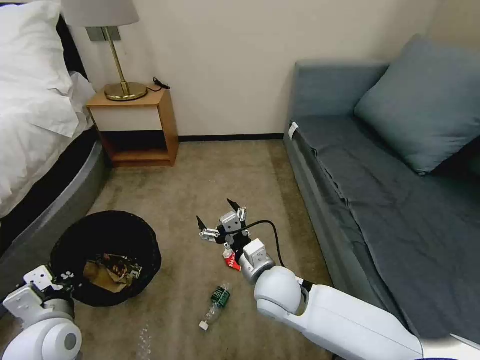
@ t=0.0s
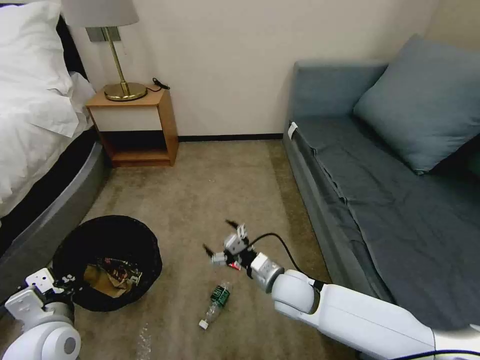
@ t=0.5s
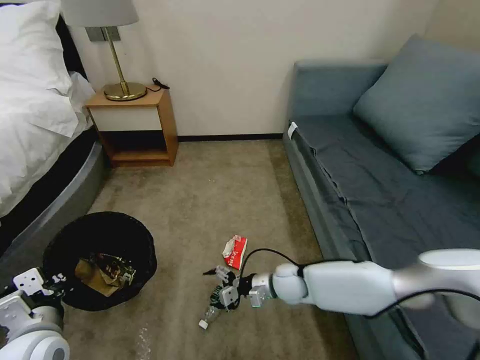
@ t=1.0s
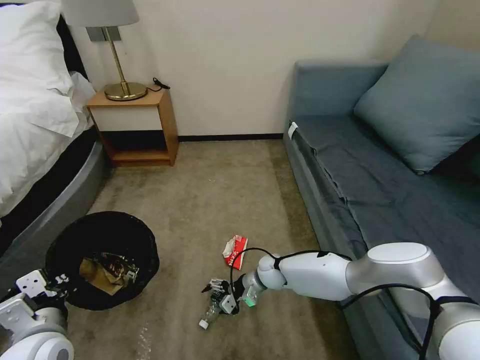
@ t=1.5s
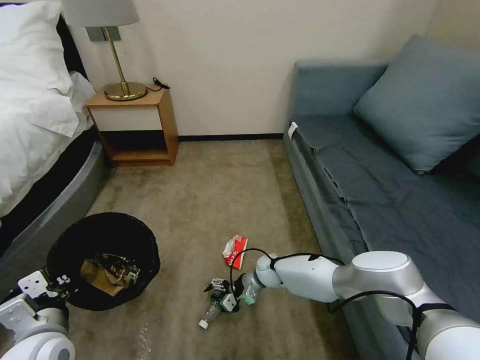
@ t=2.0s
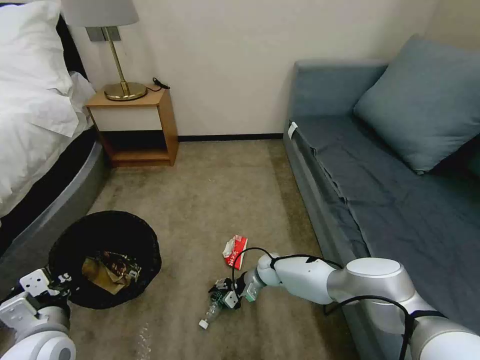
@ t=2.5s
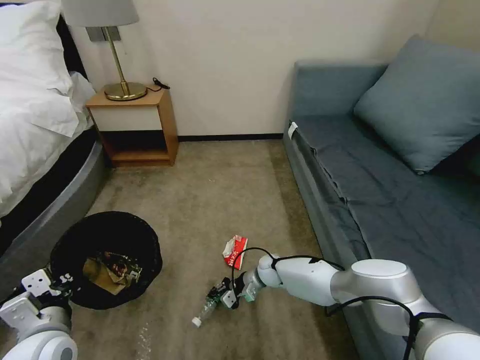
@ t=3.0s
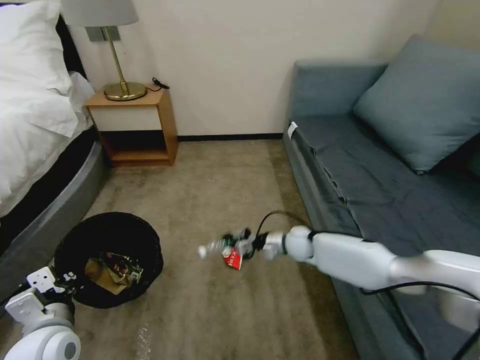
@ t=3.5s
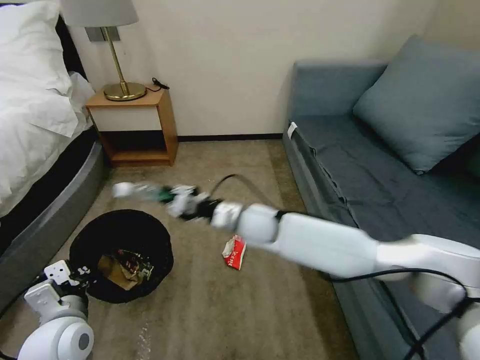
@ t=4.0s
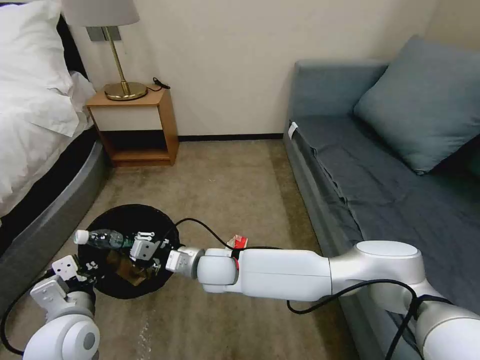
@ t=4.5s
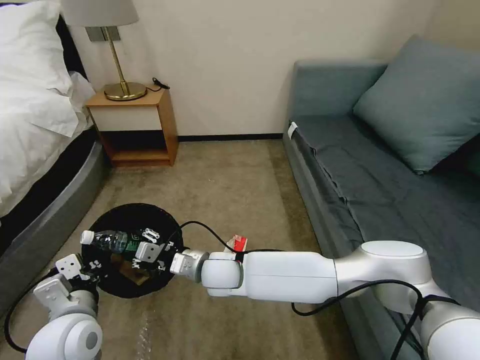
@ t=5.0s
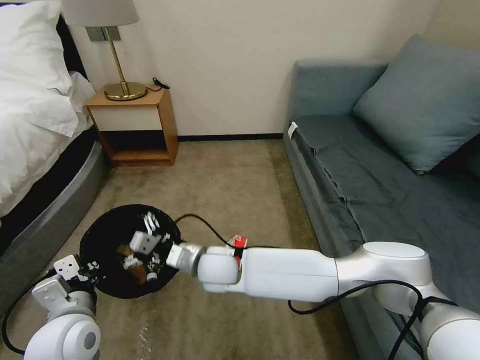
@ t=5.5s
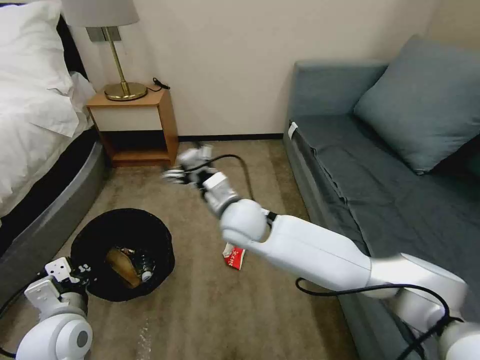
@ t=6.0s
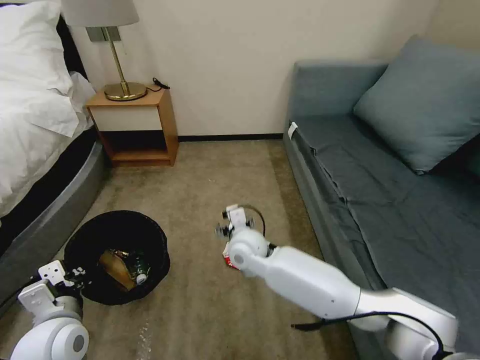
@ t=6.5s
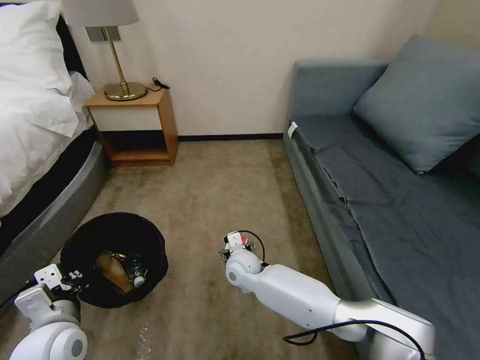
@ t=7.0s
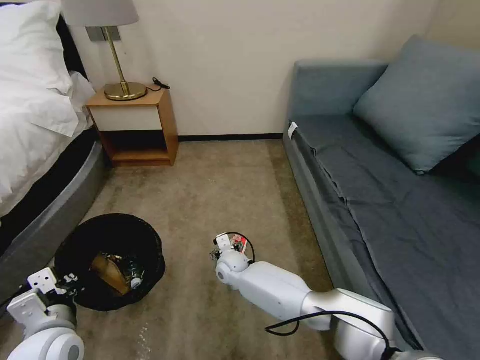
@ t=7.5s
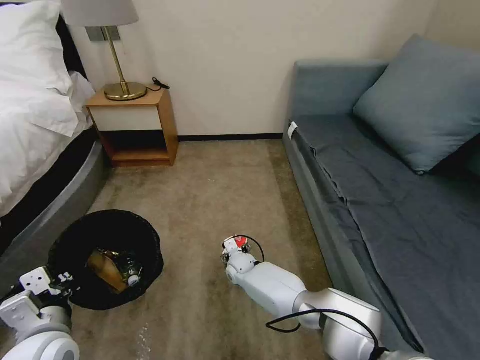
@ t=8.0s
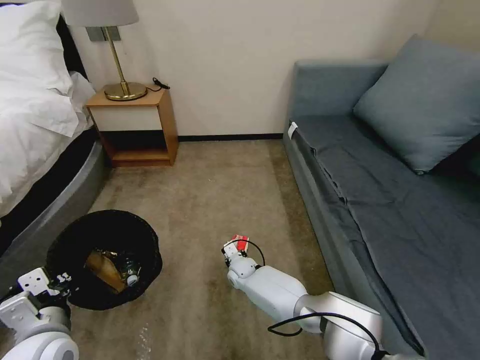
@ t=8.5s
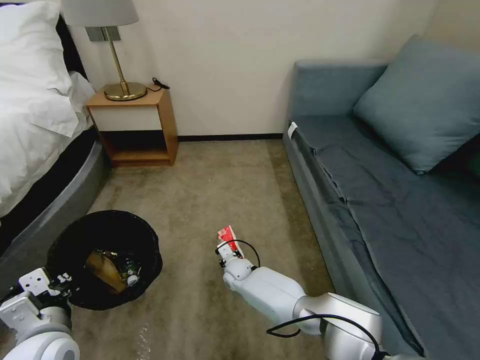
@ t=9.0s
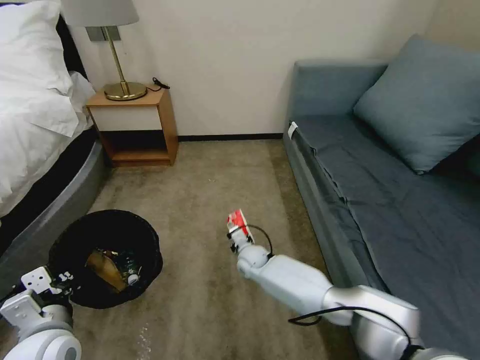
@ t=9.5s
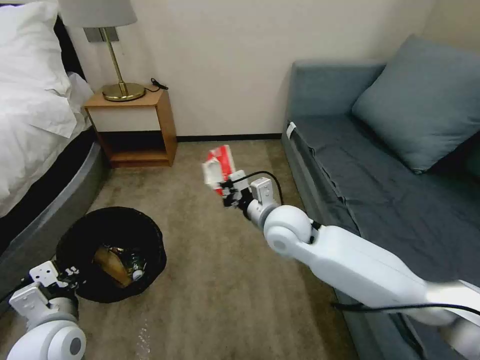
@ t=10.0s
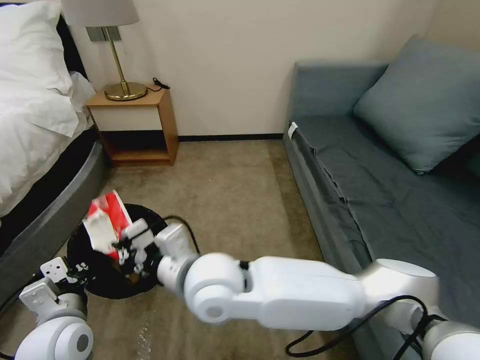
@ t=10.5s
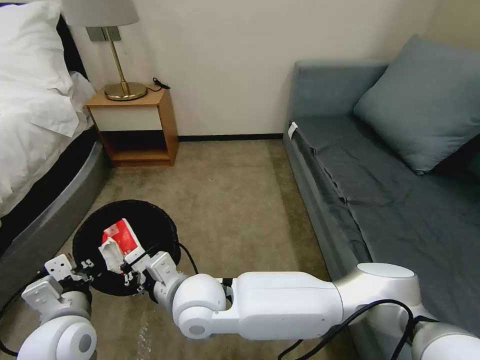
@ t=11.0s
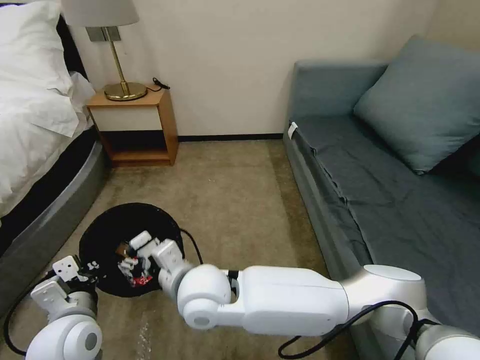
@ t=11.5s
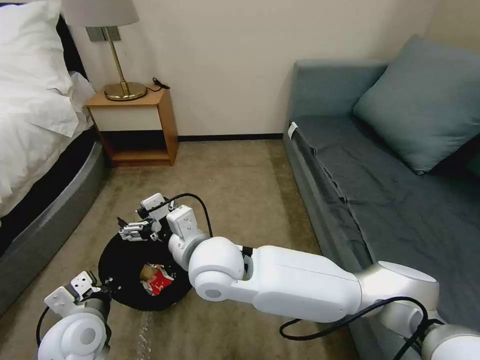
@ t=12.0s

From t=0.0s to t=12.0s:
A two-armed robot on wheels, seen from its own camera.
Task of the whole recording: Pick up the trash bin, then pick up the garbage on the floor and place it into the trash bin.
From t=0.0s to t=2.0s: The right gripper is displaced downward and forward by about 25 cm.
From t=2.0s to t=4.0s: The right gripper travels upward by roughly 25 cm, and closes.
From t=4.0s to t=6.0s: The right gripper goes about 5 cm upward, and opens its fingers.
From t=6.0s to t=8.0s: The right gripper heads downward, covering about 30 cm.
From t=8.0s to t=10.0s: The right gripper heads upward, covering roughly 30 cm, and closes.
From t=10.0s to t=12.0s: The right gripper heads to the left and backward, covering about 15 cm, and opens up.

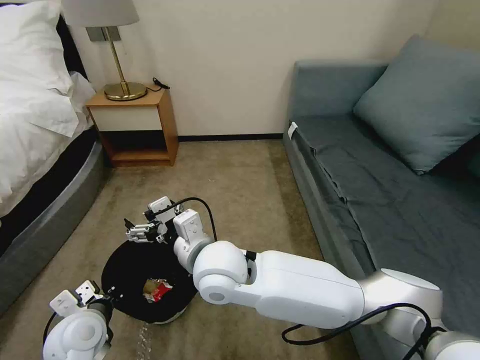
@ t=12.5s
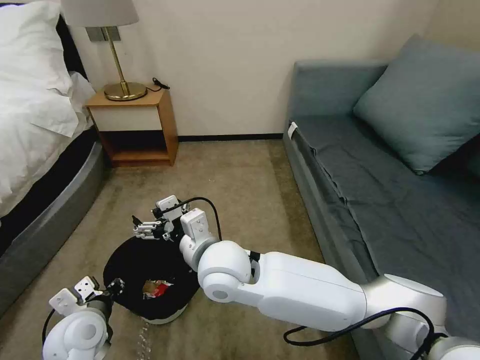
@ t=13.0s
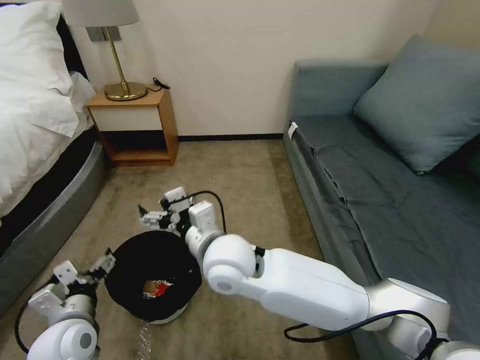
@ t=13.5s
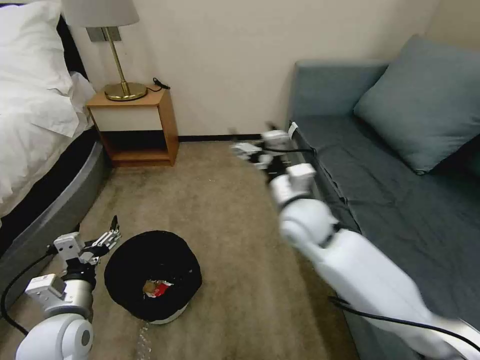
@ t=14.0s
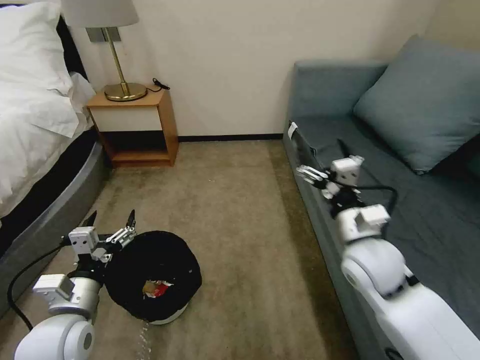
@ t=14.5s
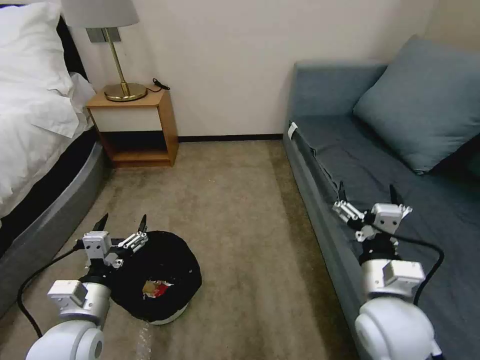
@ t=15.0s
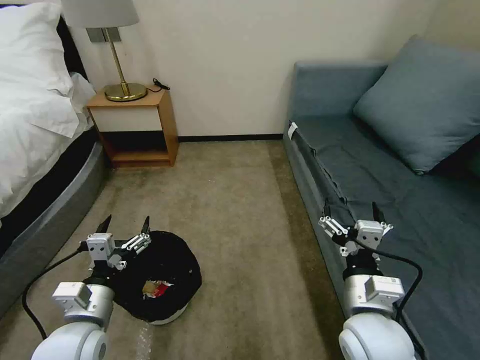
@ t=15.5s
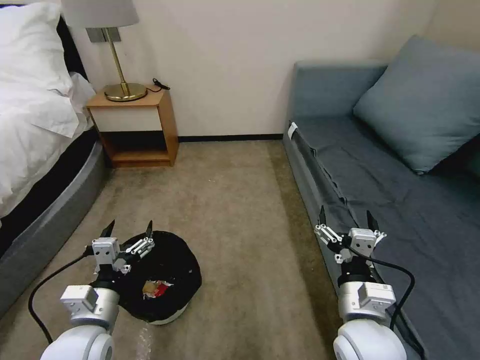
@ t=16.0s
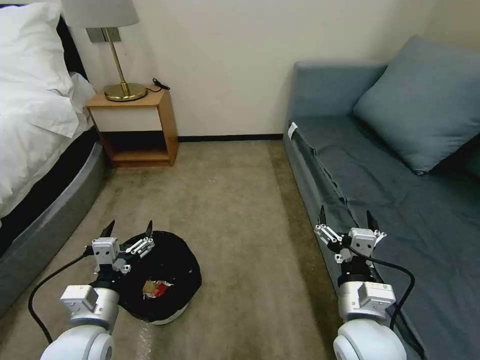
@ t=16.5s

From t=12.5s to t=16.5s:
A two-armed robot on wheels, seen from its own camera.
Task of the whole recording: Pick up the trash bin, then pick up the garbage on the floor and place it into the trash bin.
From t=12.5s to t=14.5s: The right gripper shifts some 30 cm to the right, while the left gripper ends up roughly 5 cm from where it was, and opens up.
From t=14.5s to t=16.5s: The right gripper is displaced backward and downward by approximately 15 cm.
